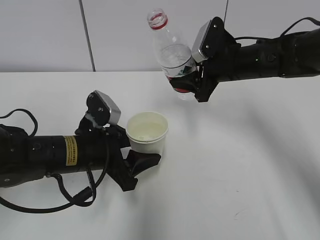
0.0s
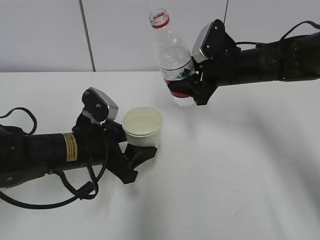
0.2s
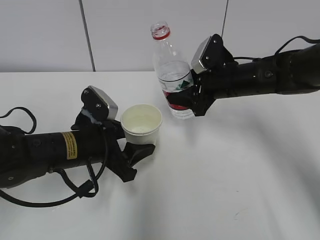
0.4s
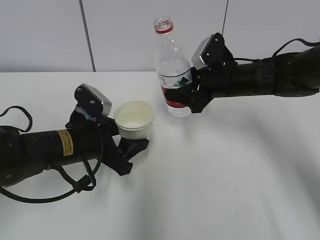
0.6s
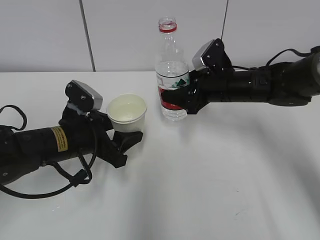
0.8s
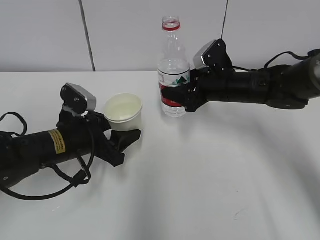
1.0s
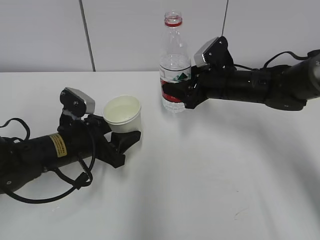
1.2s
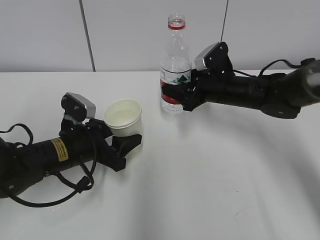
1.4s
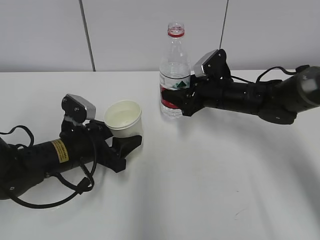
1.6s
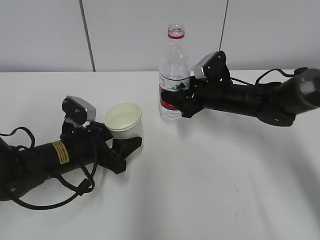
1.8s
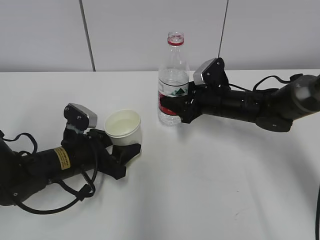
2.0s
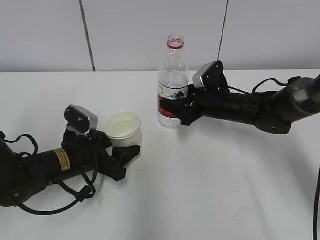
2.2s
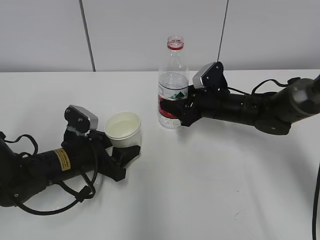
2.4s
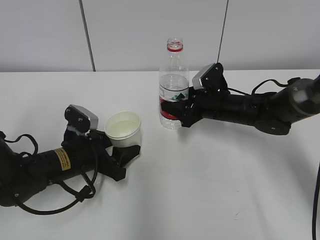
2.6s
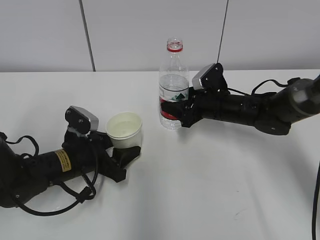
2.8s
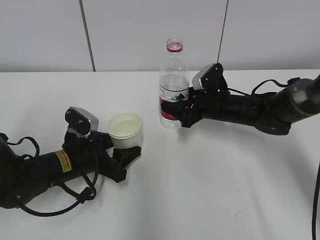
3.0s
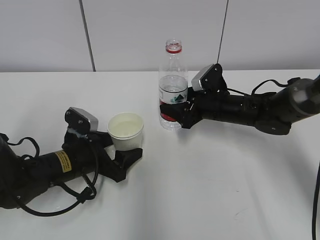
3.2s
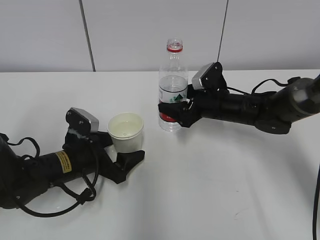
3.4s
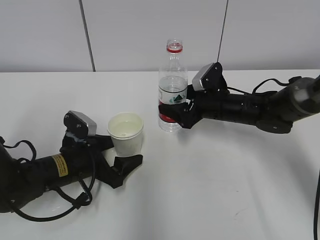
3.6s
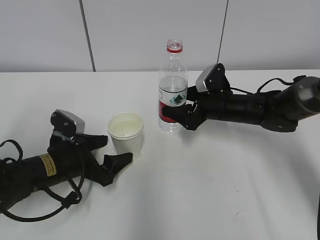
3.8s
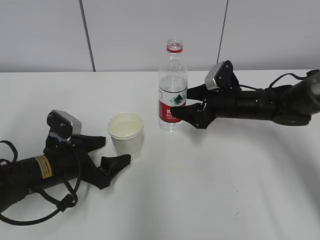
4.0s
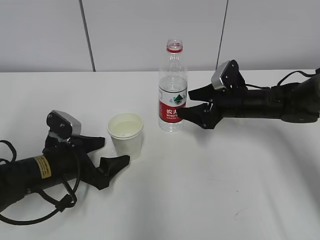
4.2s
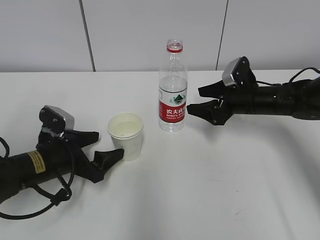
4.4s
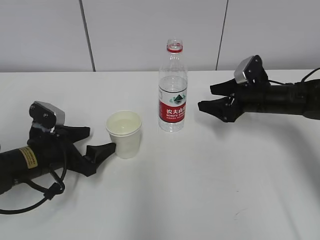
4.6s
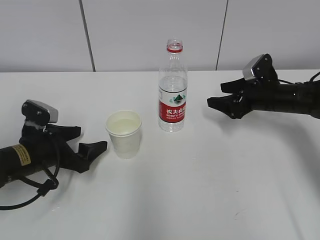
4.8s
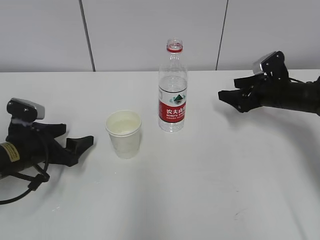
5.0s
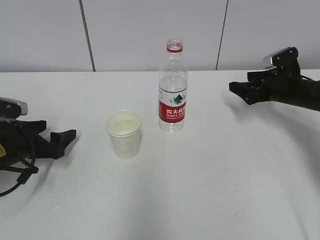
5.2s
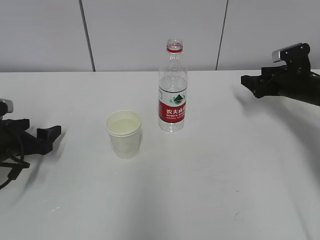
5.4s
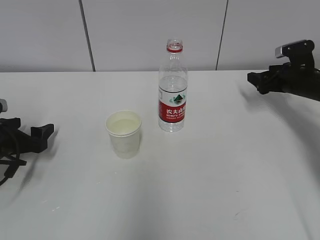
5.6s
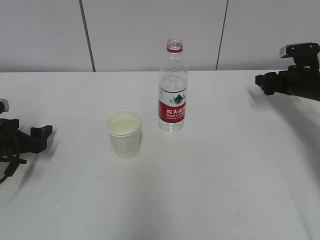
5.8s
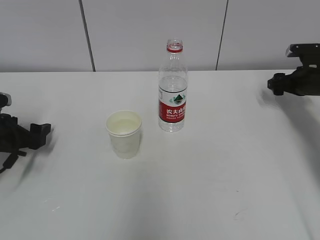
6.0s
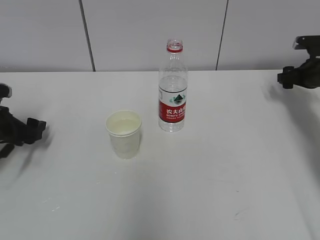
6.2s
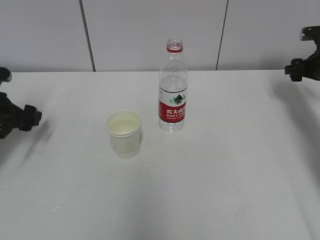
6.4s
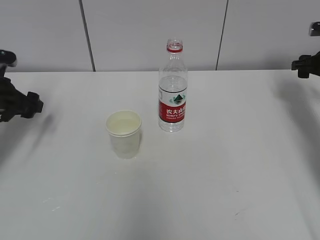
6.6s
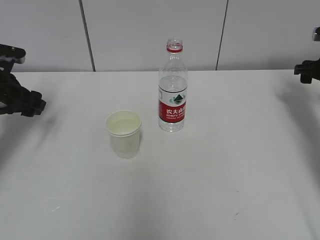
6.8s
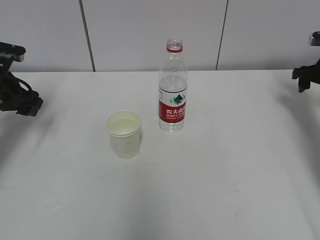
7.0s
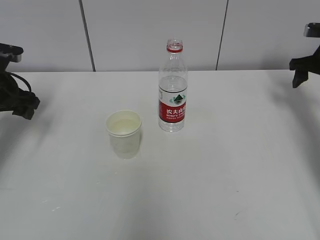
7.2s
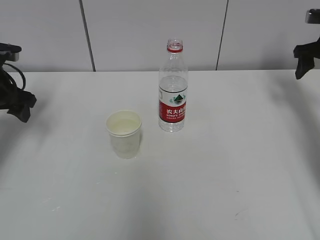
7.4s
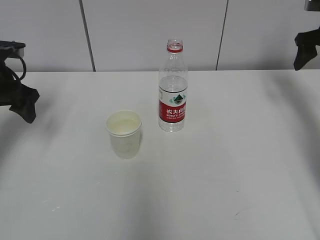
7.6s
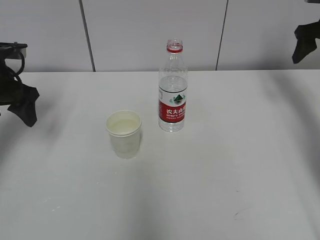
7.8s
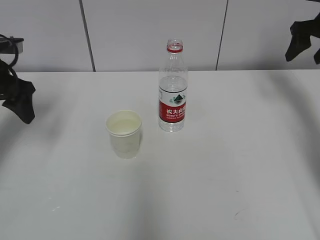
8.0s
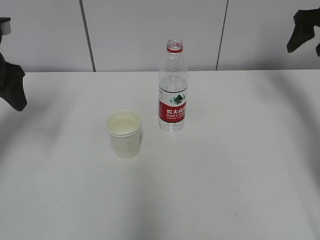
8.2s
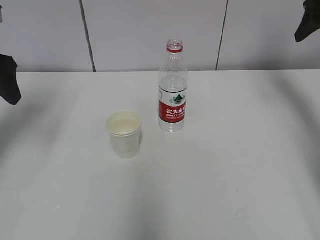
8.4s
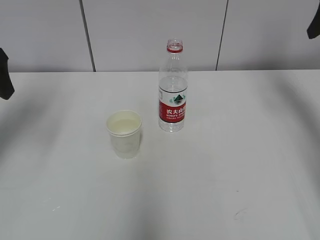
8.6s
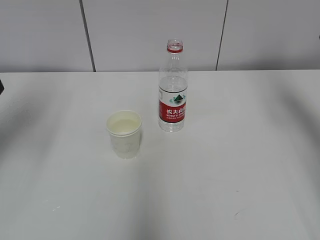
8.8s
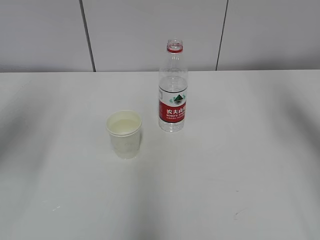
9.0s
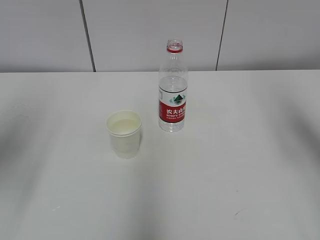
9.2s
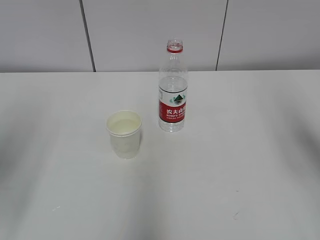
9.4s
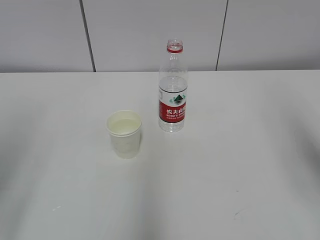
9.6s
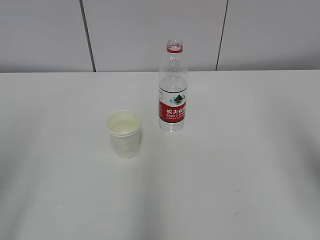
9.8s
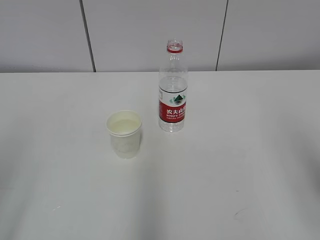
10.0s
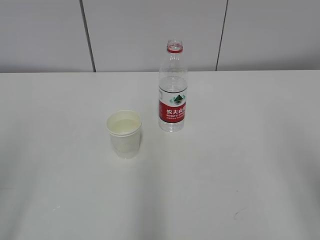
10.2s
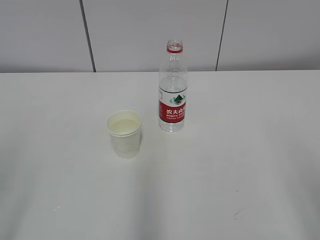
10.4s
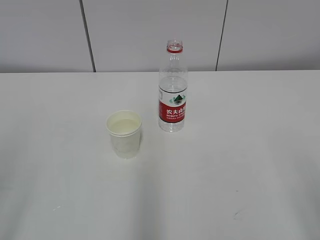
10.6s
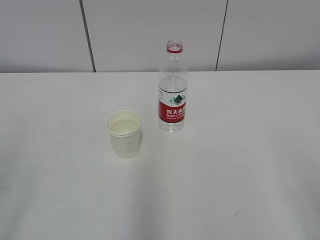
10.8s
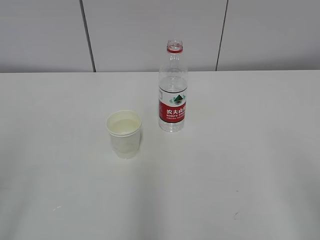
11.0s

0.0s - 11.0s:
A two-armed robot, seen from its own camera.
0.0s - 1.6s: The right gripper travels downward by approximately 10 cm; the left gripper moves some 5 cm.
1.6s - 3.2s: The right gripper opens its fingers.
3.2s - 4.8s: The left gripper shifts roughly 5 cm to the left. The right gripper travels to the right by approximately 10 cm.
4.8s - 6.2s: The left gripper travels to the left by some 10 cm, while the right gripper is displaced to the right by some 10 cm.
6.2s - 7.8s: The two grippers go roughly 15 cm upward.
7.8s - 9.4s: The left gripper travels backward and upward by about 25 cm. Meanwhile the right gripper travels backward by about 25 cm.
9.4s - 11.0s: The right gripper is displaced backward and downward by some 20 cm.

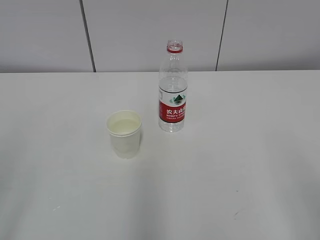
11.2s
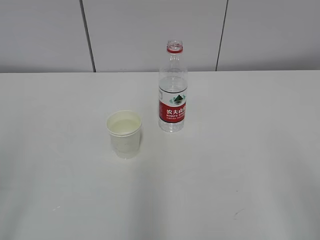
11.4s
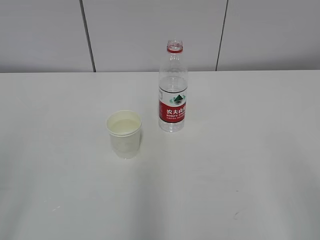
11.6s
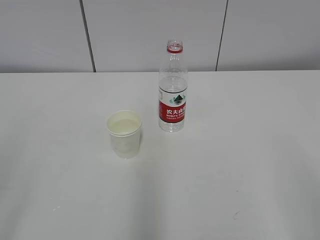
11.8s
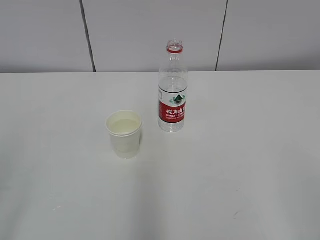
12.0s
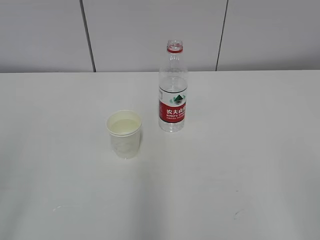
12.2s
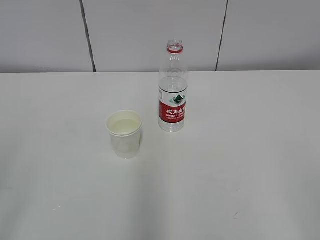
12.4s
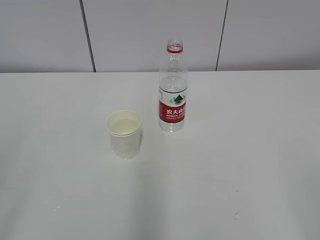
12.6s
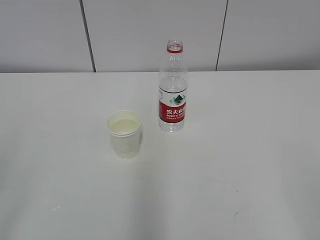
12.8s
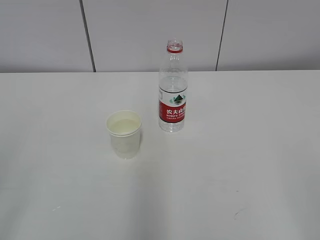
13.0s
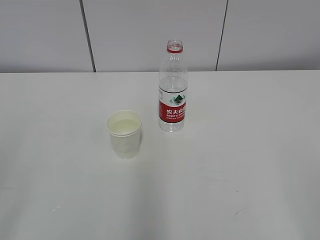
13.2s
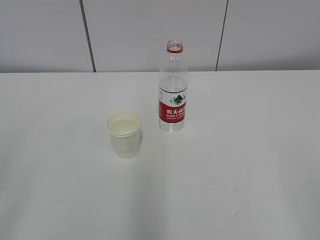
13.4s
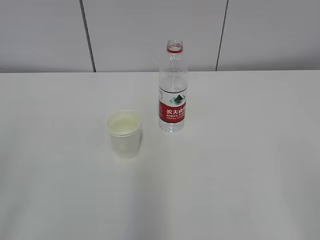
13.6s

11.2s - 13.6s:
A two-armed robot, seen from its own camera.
12.4s - 13.6s: Both grippers stay about where they are.
